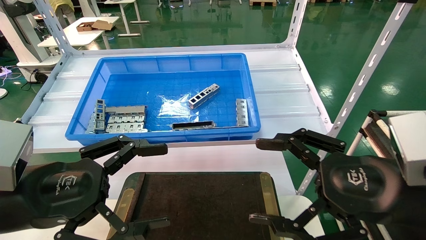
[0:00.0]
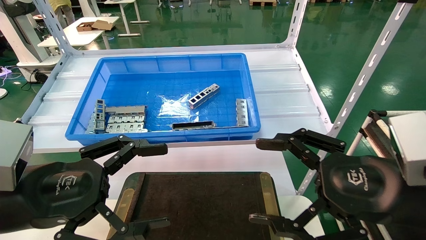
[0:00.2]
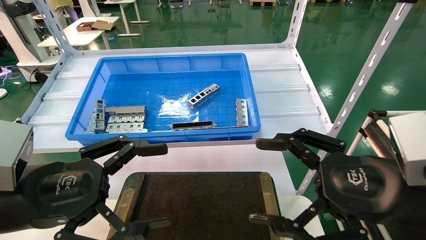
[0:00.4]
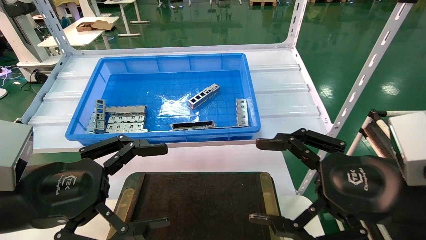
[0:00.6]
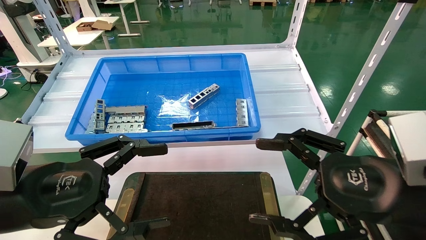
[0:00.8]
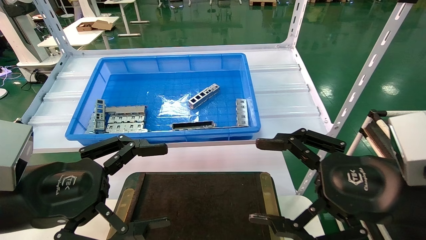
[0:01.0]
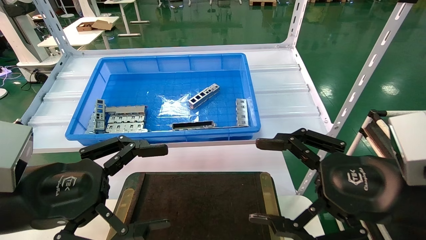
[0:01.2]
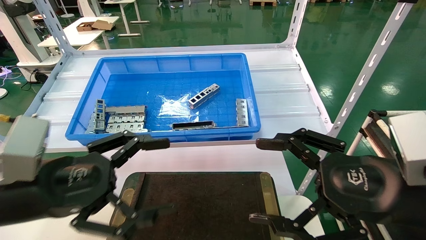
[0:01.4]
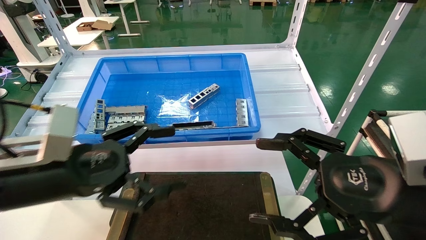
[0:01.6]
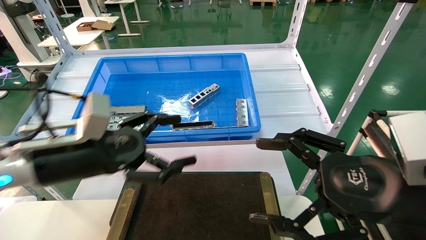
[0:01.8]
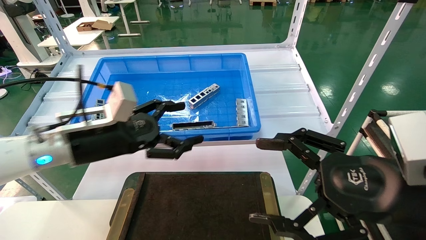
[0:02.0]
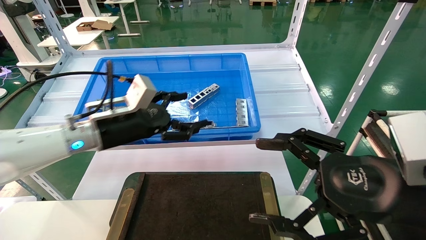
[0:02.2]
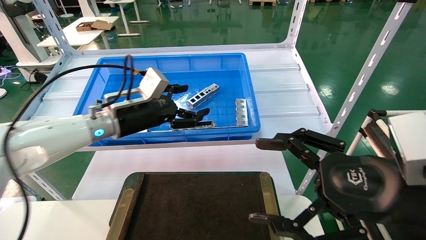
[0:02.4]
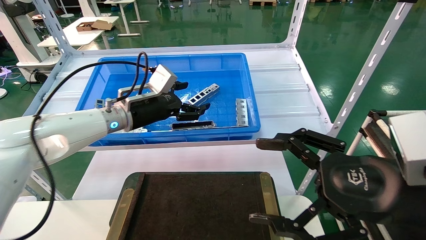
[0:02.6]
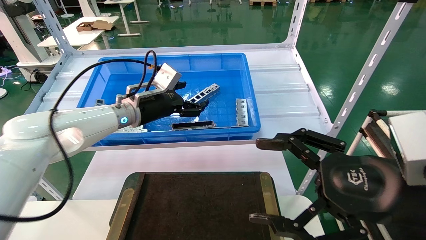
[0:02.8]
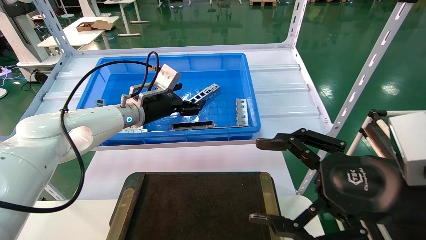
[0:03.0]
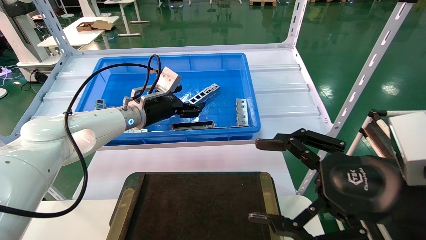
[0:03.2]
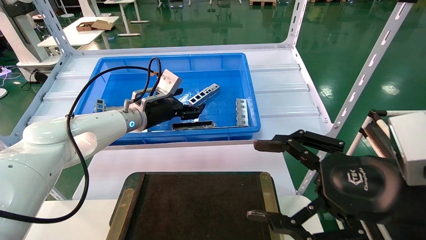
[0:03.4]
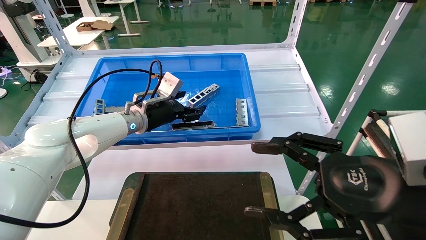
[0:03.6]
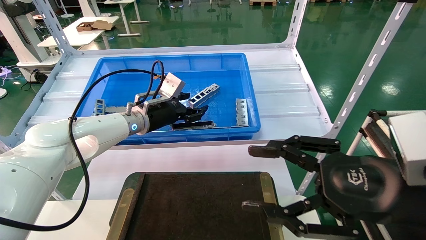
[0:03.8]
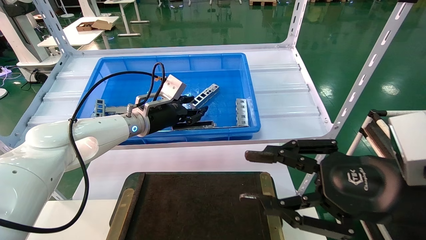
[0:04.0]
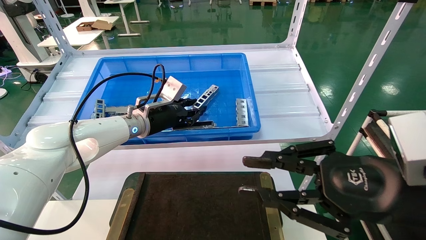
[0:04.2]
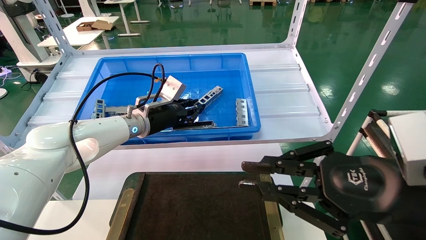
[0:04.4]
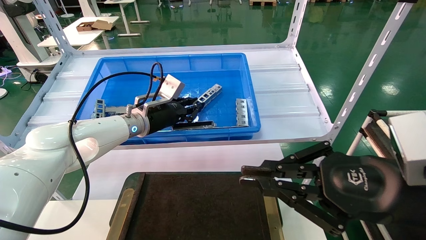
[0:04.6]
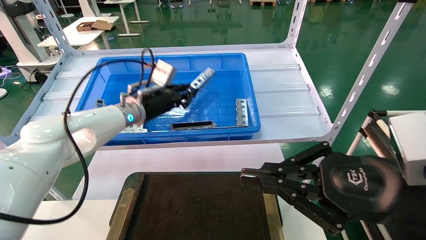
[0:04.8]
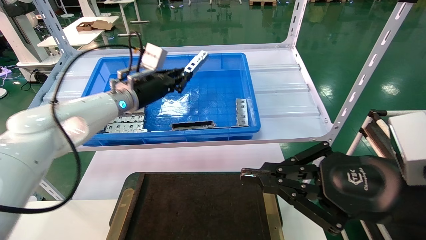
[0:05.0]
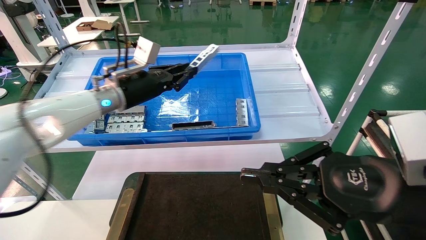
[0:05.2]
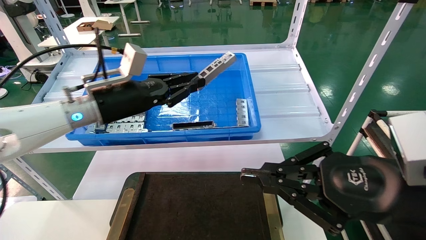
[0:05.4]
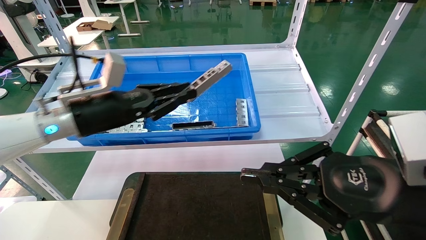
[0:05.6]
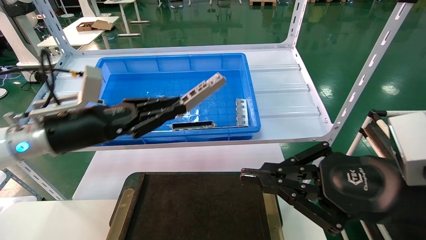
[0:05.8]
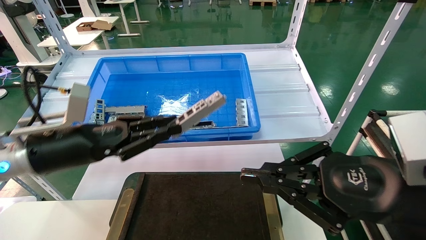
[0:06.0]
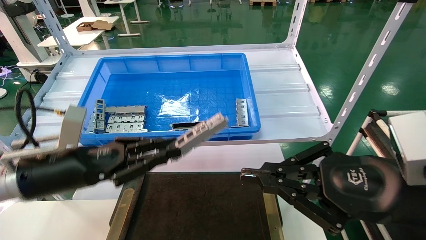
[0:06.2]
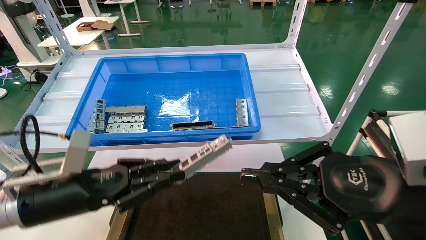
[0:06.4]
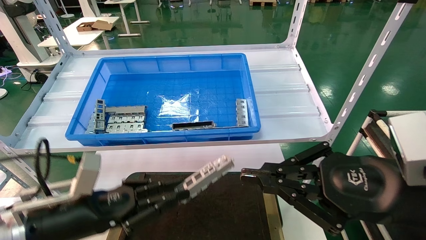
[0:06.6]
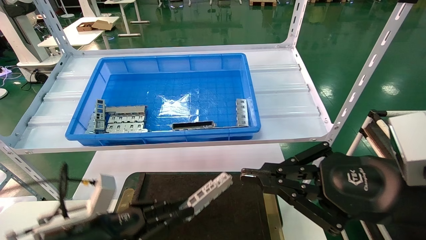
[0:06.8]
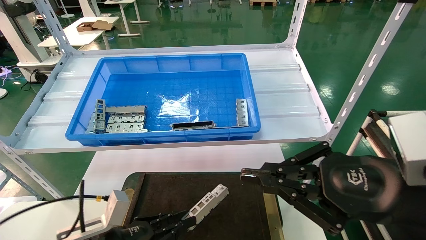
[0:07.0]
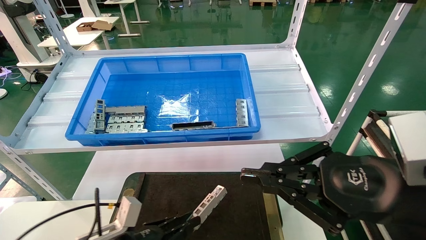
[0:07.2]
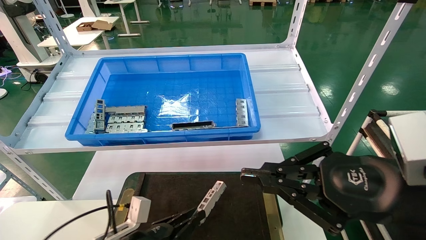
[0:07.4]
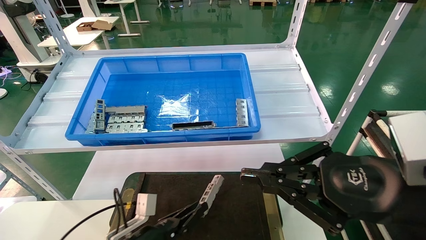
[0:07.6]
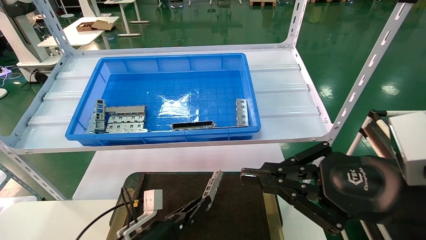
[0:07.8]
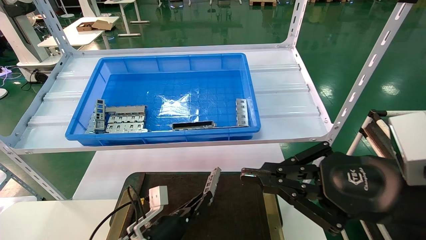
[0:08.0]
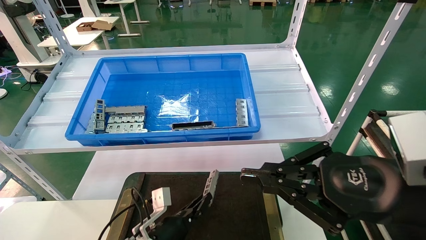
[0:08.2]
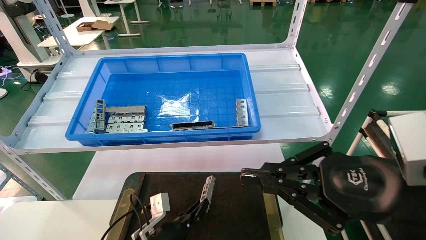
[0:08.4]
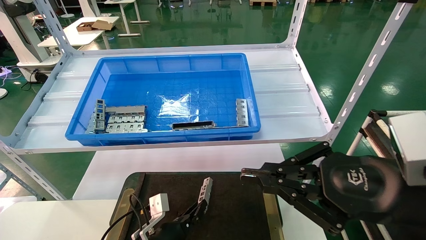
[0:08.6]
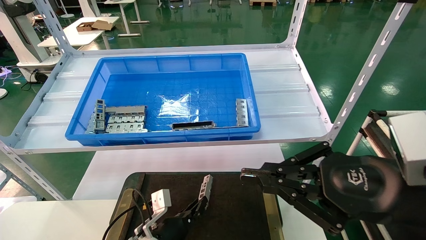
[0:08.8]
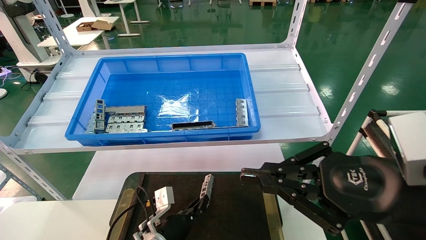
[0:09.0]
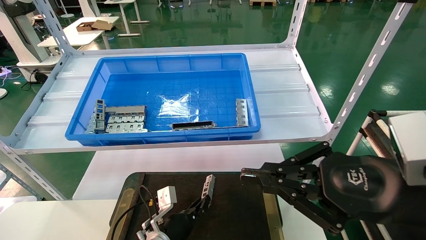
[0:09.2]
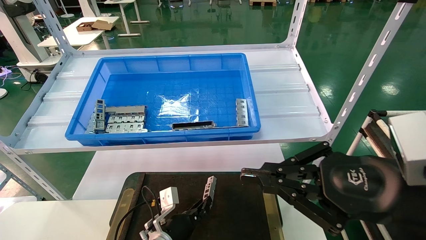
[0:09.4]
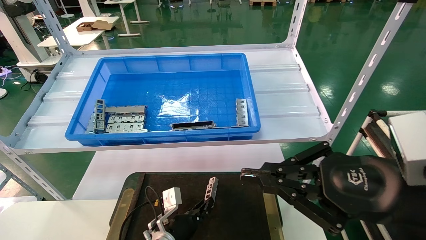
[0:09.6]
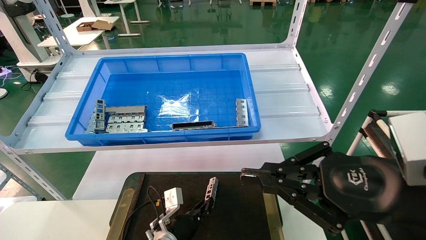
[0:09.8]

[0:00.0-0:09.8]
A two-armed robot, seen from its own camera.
Task of the whole recording: Grasp the part with one hand and place it on the black container.
Step, 0:01.6 to 0:04.8: Pick up the front USB bracket from the feeding area.
0:00.0 to 0:01.4: The grippers move only a little.
0:01.4 to 0:02.8: The left gripper shifts some 25 cm forward.
0:02.8 to 0:04.2: The right gripper closes, while the left gripper closes.
0:04.2 to 0:05.6: The left gripper moves backward and to the left, about 15 cm. Meanwhile the right gripper closes up.
0:05.6 to 0:07.0: The left gripper heads downward and backward, covering about 25 cm.
0:07.0 to 0:08.4: The left gripper shifts roughly 15 cm to the right, downward and forward.
0:08.4 to 0:09.8: The left gripper moves roughly 5 cm.

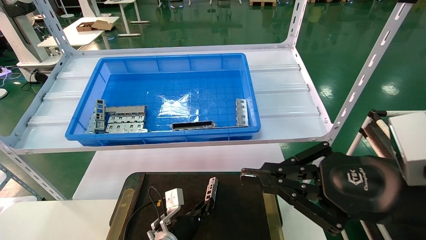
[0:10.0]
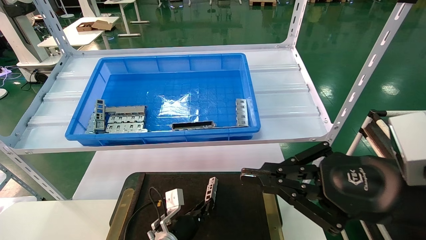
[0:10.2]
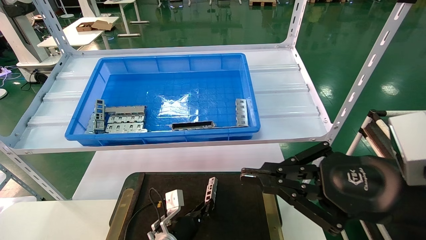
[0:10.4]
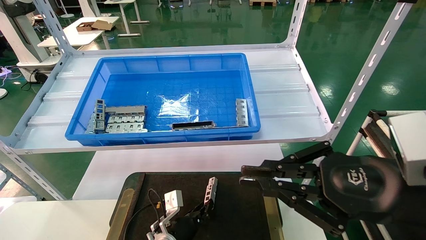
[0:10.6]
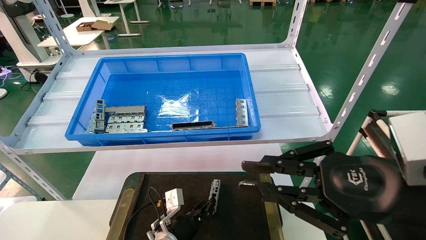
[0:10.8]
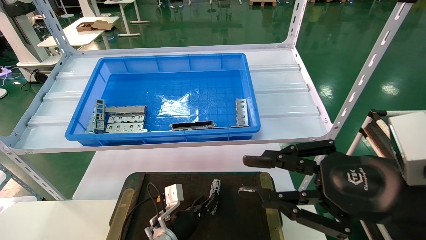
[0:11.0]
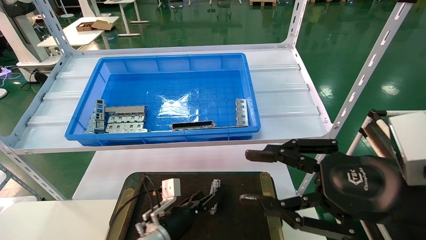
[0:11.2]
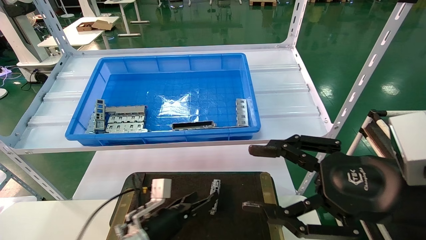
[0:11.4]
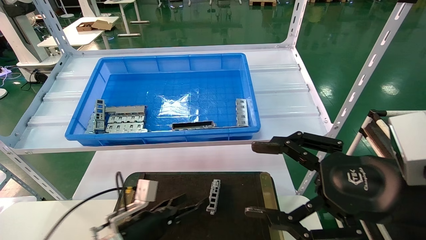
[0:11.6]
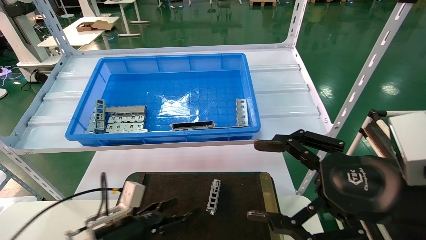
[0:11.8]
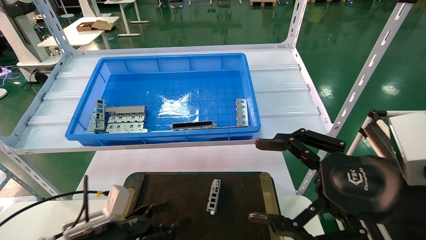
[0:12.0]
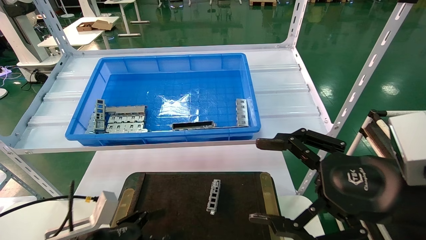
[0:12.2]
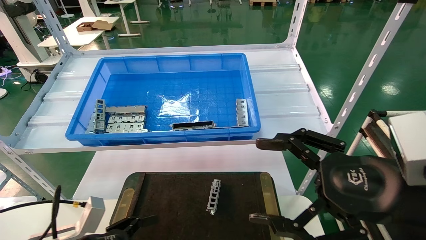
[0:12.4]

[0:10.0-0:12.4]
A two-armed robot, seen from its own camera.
Task of the whole recording: Grasp the part with one hand and place it on the black container.
0:10.0 to 0:11.2: The left gripper shifts by some 5 cm, and opens up. The right gripper opens its fingers.
0:11.2 to 0:12.4: The left gripper moves to the left, backward and upward, approximately 20 cm, and opens up, while the right gripper opens.

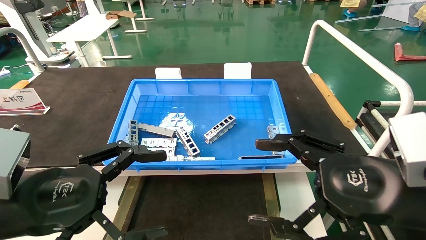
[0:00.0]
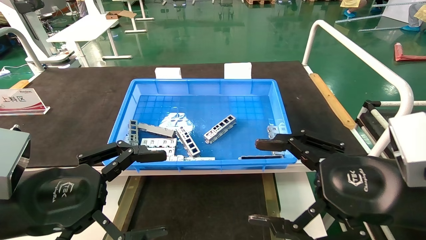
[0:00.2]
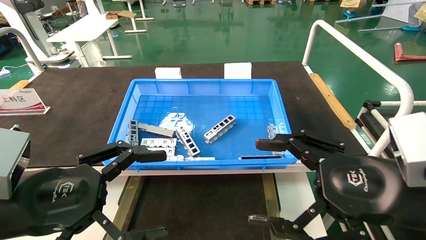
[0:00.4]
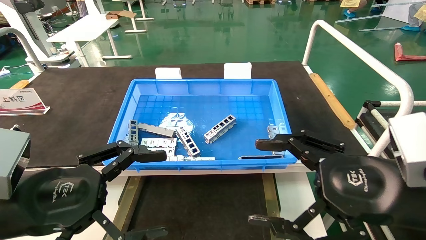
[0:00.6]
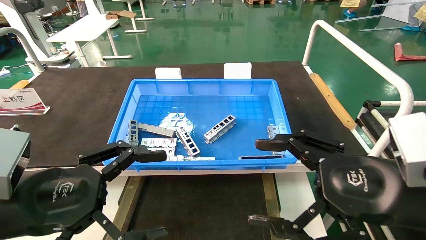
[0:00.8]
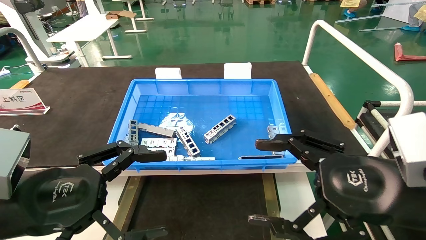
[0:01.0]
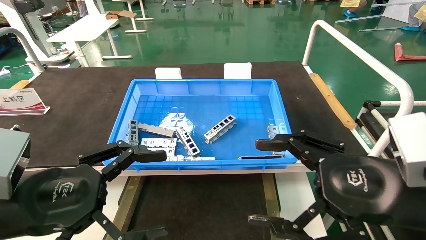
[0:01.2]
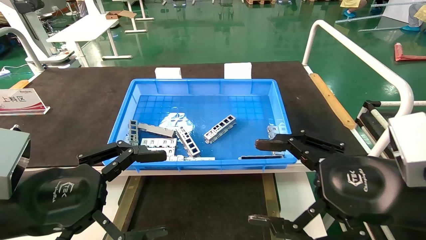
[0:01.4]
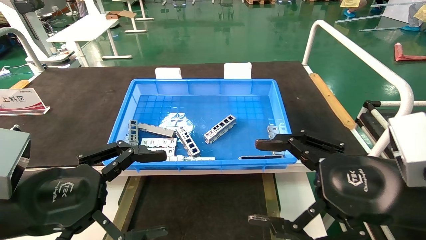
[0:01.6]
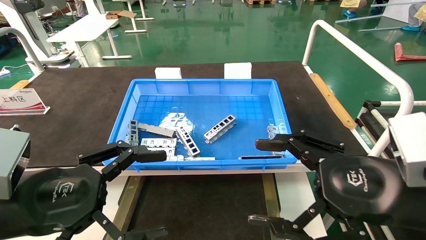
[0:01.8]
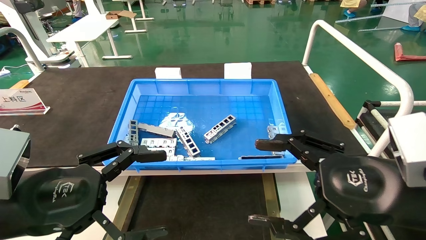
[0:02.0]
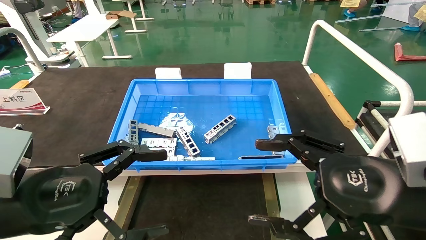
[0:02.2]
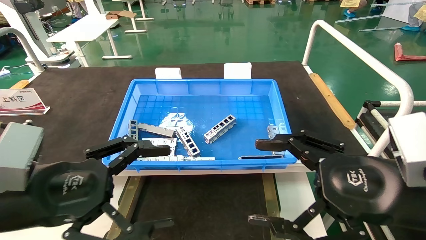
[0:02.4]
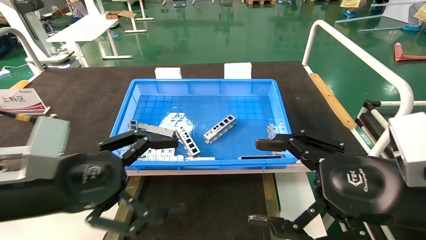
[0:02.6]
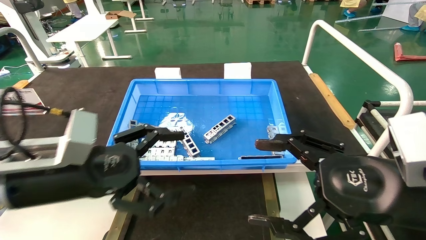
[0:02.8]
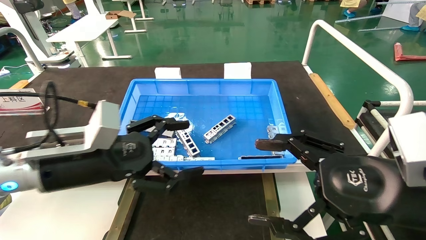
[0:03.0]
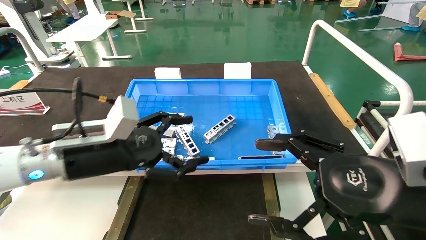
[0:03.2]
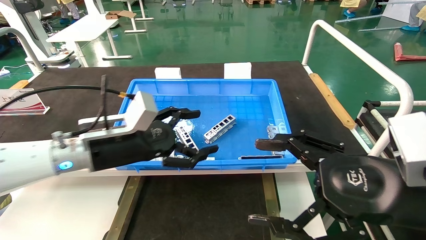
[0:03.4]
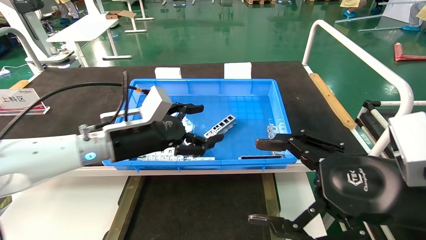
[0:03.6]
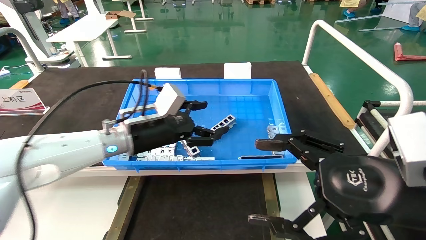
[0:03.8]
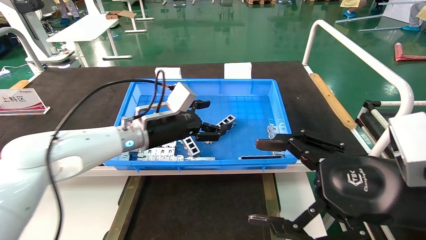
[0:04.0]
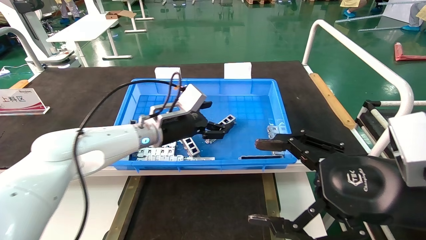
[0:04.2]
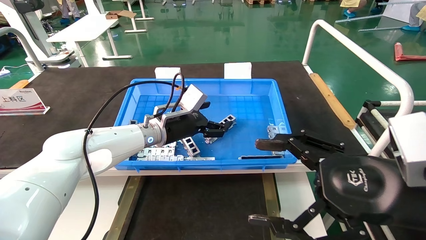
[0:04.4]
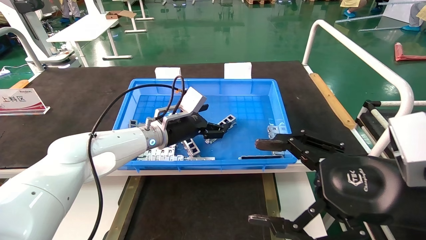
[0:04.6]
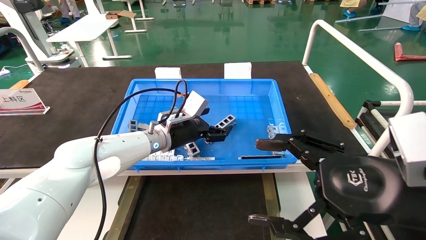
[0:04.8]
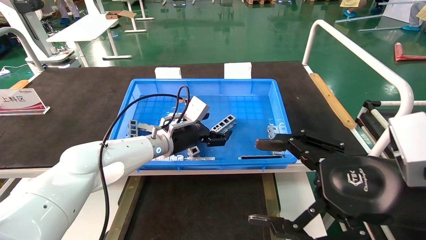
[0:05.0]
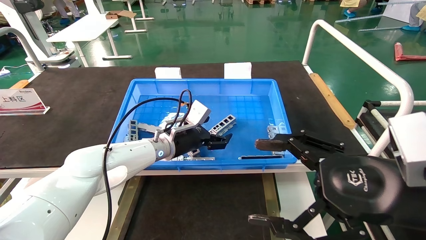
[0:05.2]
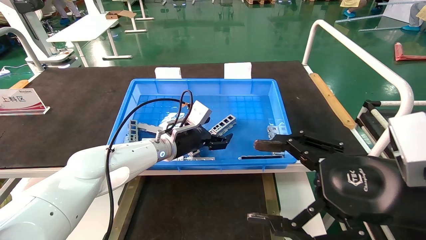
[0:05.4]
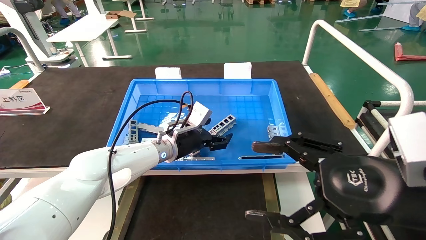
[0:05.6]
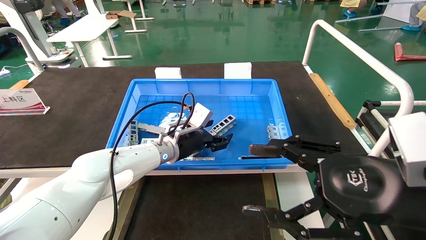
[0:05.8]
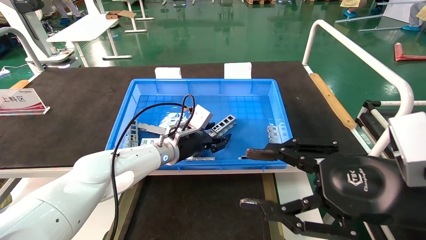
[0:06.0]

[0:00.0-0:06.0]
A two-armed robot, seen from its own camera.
Task of the whole recording: Grasp the part with one hand and place it on the black container.
0:00.0 to 0:01.6: Both grippers stay put.
0:01.6 to 0:03.0: The left gripper goes approximately 10 cm forward.
0:03.0 to 0:04.4: The left gripper moves forward and to the right, about 20 cm.
0:04.4 to 0:06.0: The left gripper moves downward, about 5 cm.
